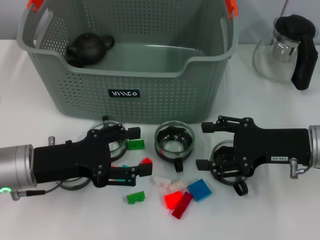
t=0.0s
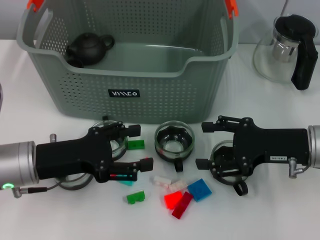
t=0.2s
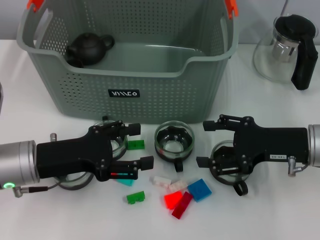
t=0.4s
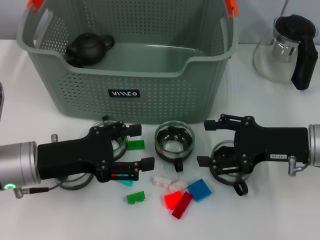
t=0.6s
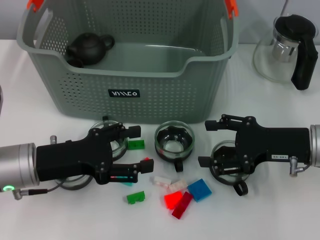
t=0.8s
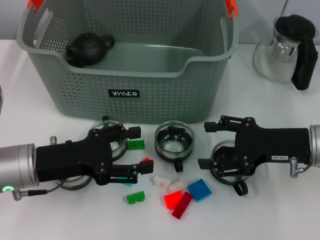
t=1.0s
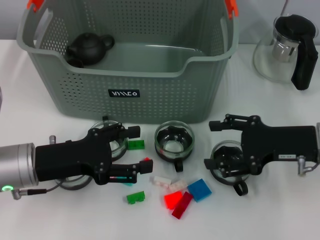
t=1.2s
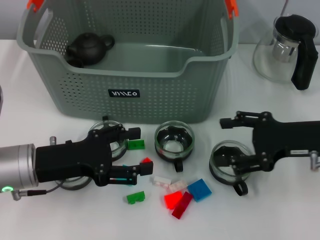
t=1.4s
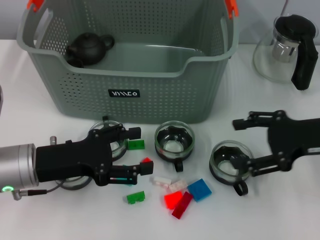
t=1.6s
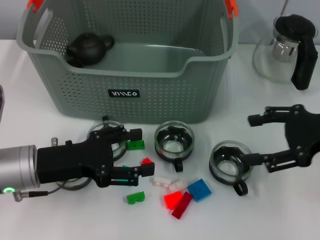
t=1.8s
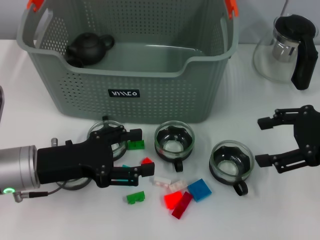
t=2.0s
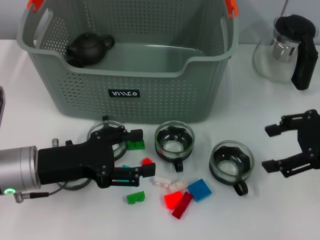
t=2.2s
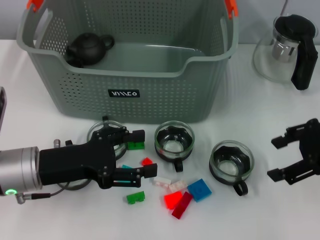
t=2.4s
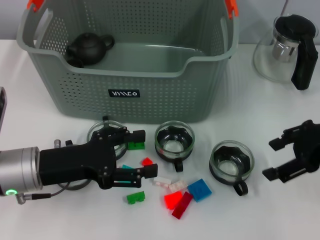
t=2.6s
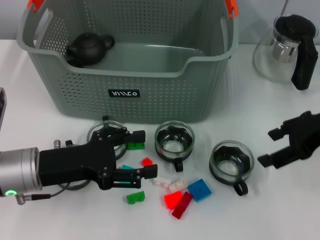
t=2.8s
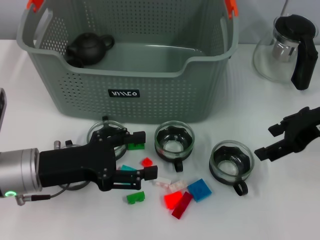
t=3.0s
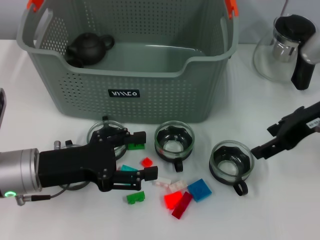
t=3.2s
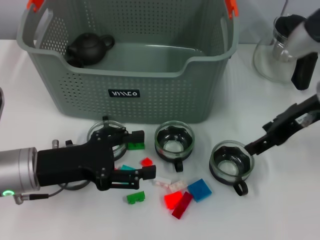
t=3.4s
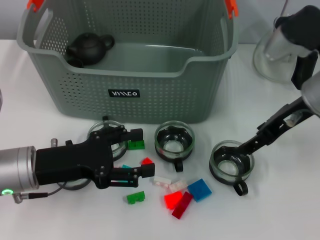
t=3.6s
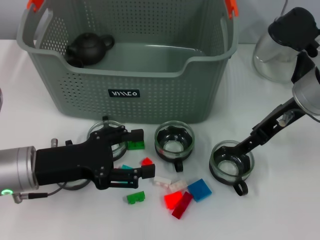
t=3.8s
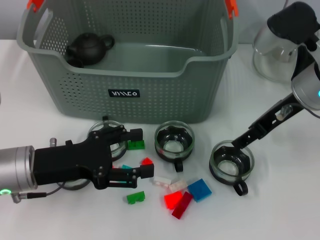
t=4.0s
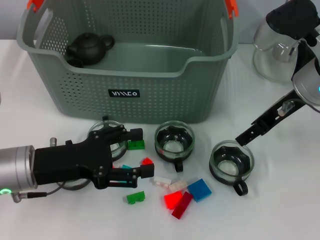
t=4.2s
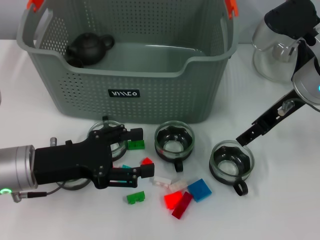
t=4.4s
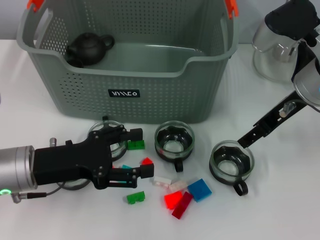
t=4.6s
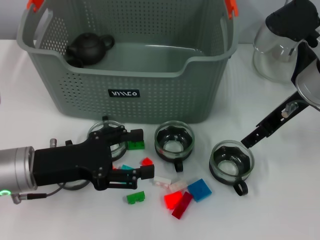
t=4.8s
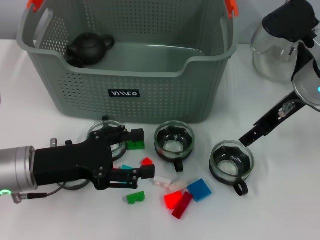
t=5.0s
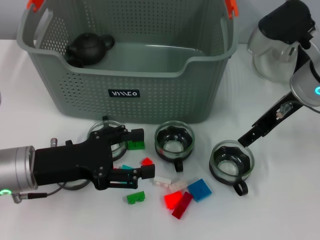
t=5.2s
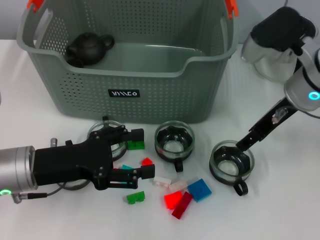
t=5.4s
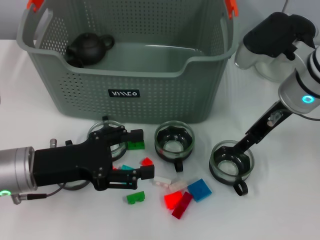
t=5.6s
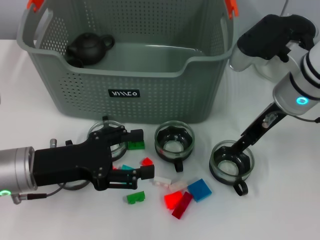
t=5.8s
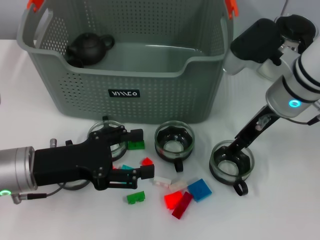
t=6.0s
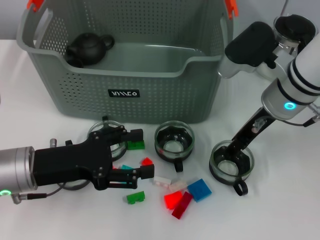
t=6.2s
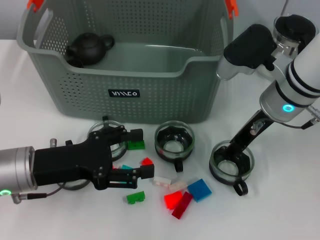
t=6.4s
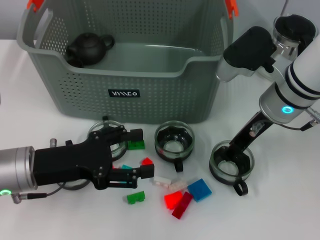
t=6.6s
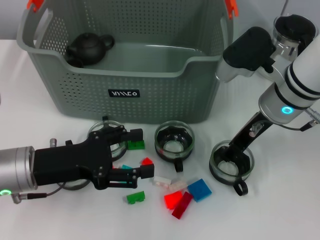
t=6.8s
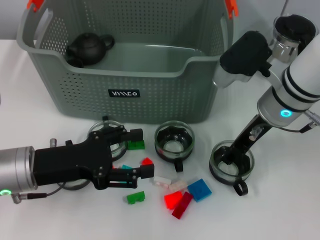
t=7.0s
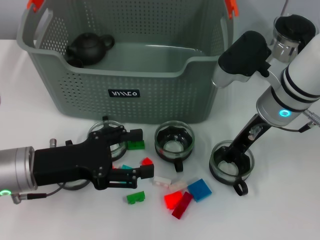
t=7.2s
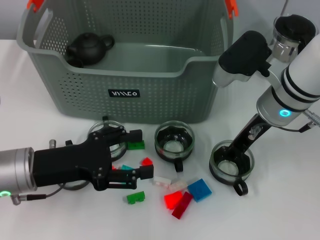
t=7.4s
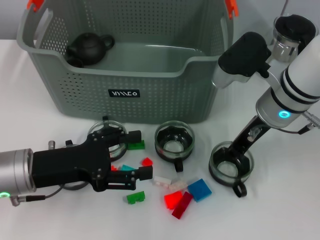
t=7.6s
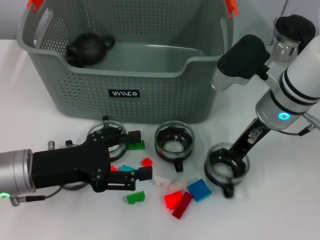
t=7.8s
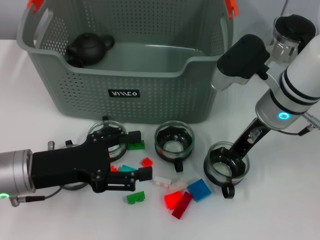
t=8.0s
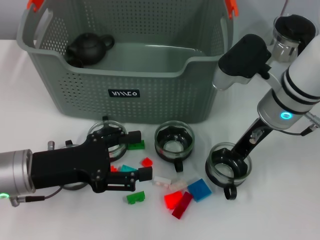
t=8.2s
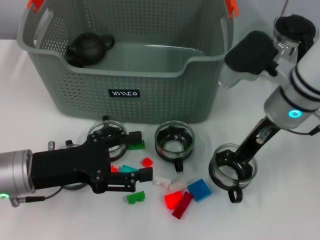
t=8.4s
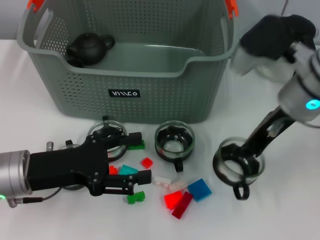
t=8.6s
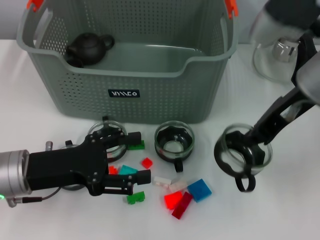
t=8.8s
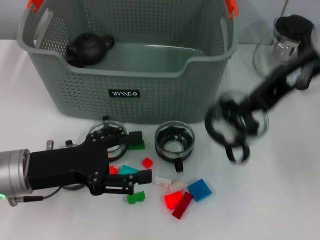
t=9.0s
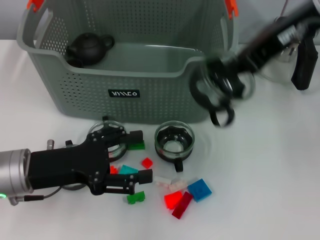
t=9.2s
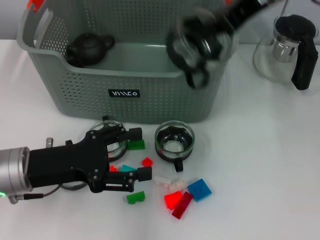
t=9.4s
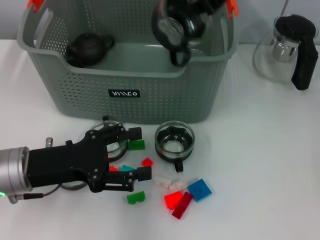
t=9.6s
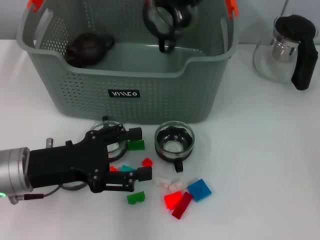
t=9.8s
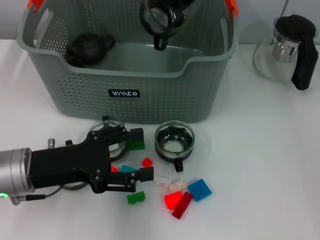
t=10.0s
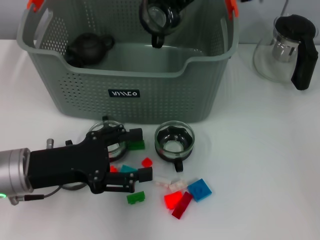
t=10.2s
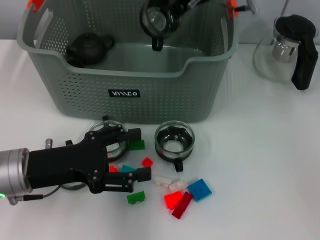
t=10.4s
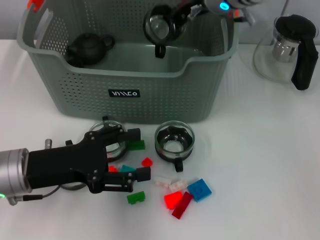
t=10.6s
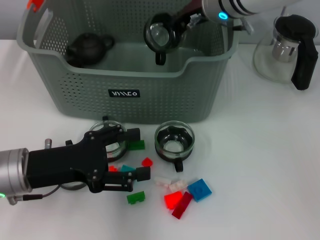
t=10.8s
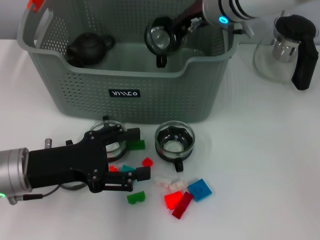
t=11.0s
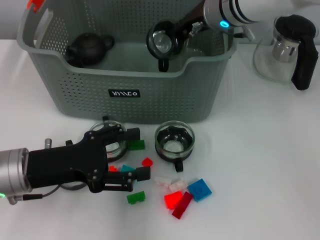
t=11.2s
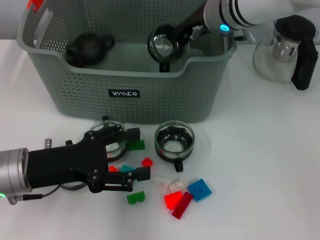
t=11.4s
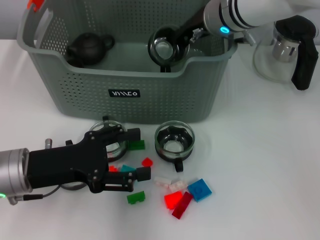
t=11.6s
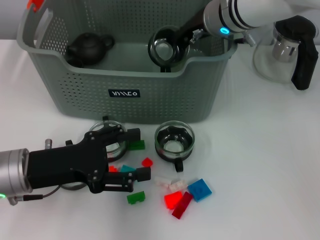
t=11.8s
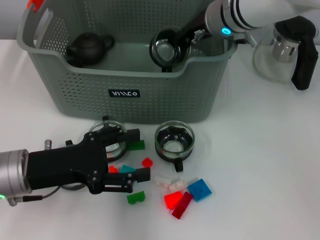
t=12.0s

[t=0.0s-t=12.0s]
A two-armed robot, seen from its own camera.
Task of the whole recording: pick up the teacup on the table and place it into the storage bin, pick up the block on the table and place it into the storage bin.
Step, t=0.0s to t=7.8s: Grasp the cup with right gripper.
t=0.0s to t=1.6s: The right gripper shifts by approximately 5 cm.
t=1.6s to t=3.0s: The right gripper changes place by some 5 cm.
t=3.0s to t=4.4s: The right gripper moves to the left, approximately 5 cm.
t=4.4s to t=6.0s: The grippers make only small movements.
t=6.0s to t=7.6s: The right gripper closes its fingers.
t=7.6s to t=9.0s: The right gripper moves upward, roughly 15 cm, and closes its fingers.
t=9.0s to t=10.4s: The right gripper travels forward and to the left by about 15 cm.
t=10.4s to t=12.0s: The right gripper moves approximately 5 cm.

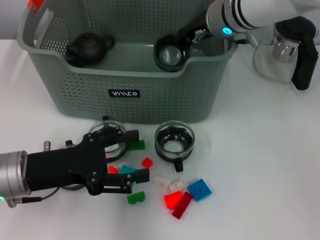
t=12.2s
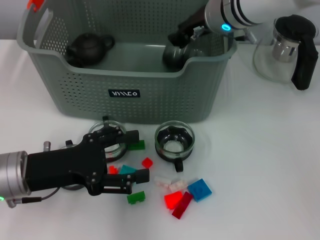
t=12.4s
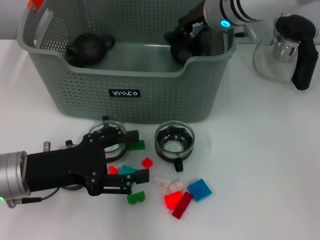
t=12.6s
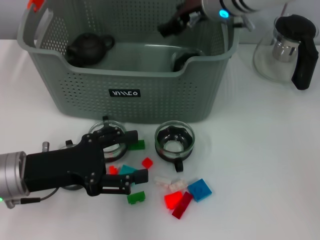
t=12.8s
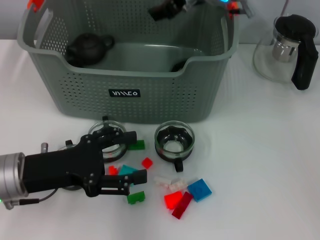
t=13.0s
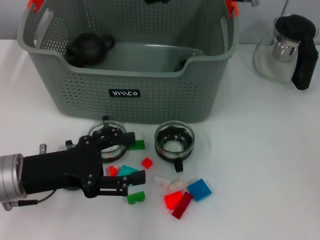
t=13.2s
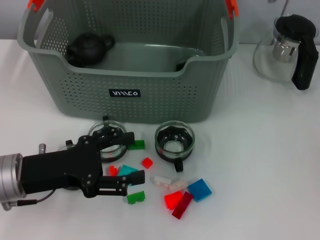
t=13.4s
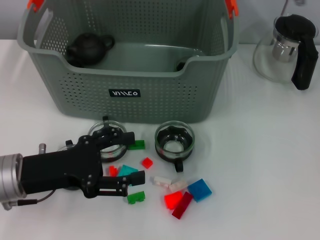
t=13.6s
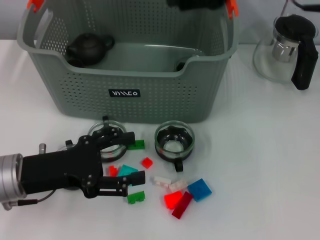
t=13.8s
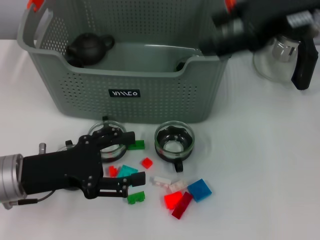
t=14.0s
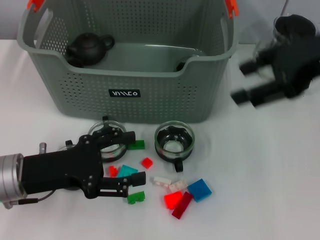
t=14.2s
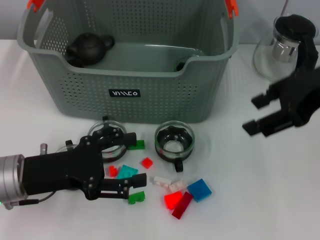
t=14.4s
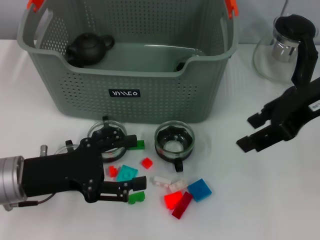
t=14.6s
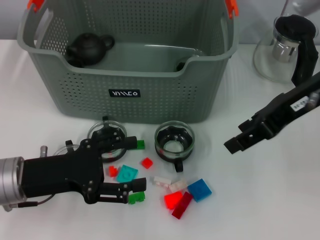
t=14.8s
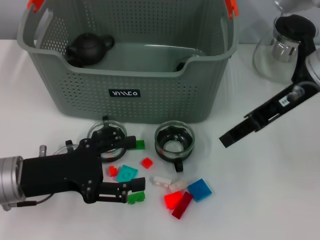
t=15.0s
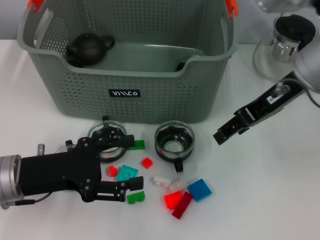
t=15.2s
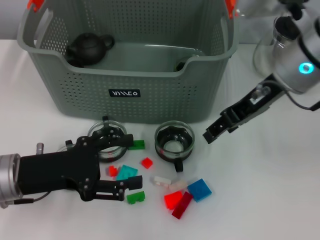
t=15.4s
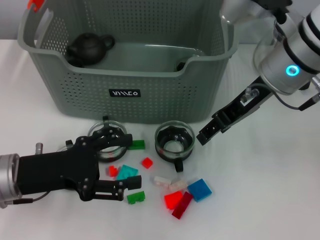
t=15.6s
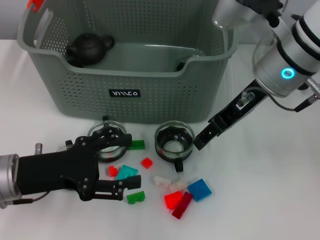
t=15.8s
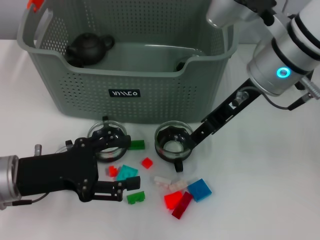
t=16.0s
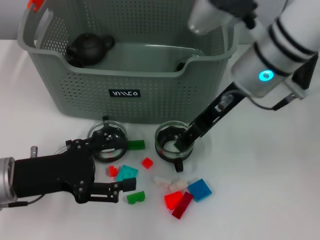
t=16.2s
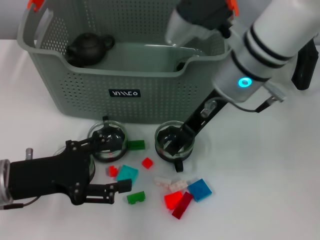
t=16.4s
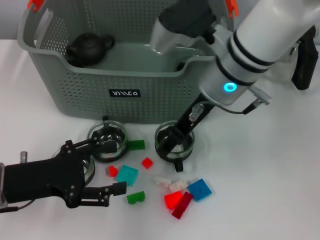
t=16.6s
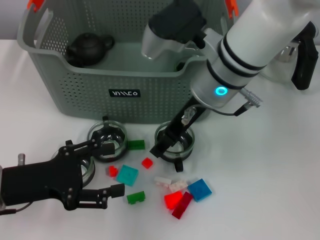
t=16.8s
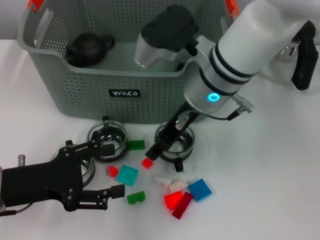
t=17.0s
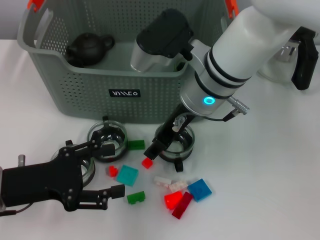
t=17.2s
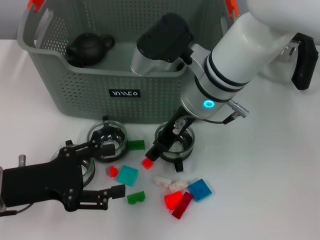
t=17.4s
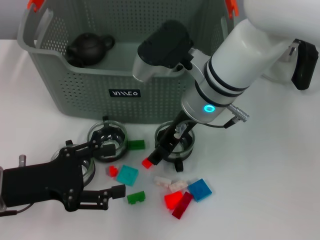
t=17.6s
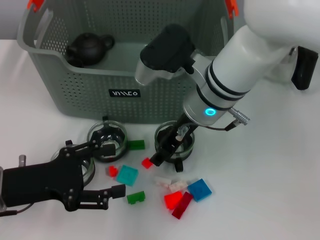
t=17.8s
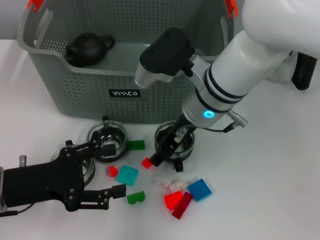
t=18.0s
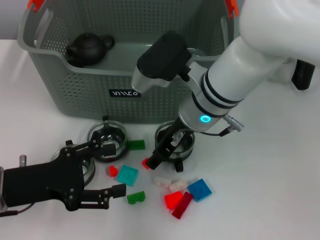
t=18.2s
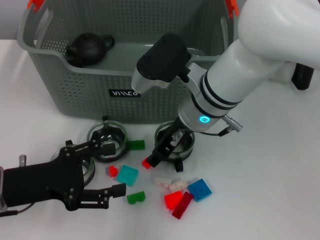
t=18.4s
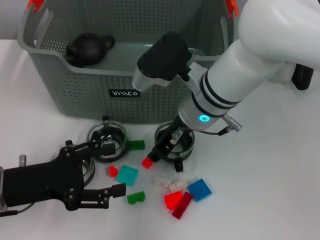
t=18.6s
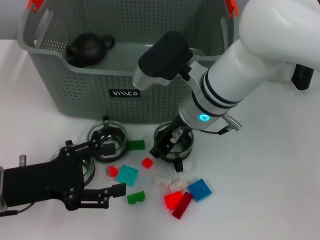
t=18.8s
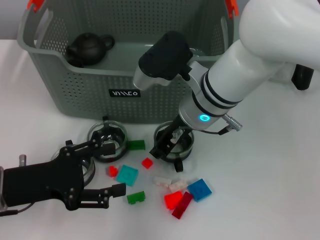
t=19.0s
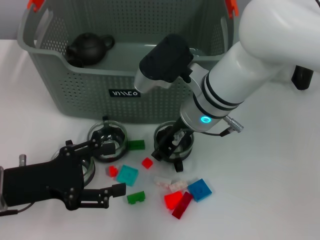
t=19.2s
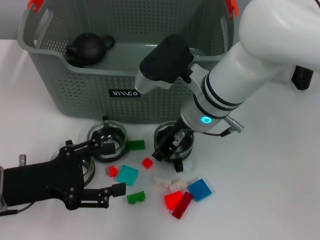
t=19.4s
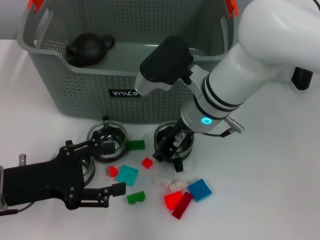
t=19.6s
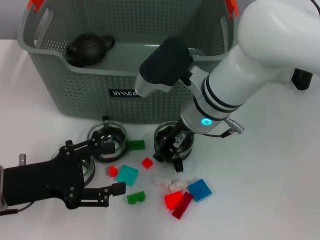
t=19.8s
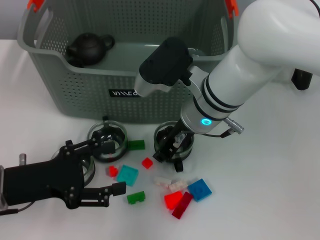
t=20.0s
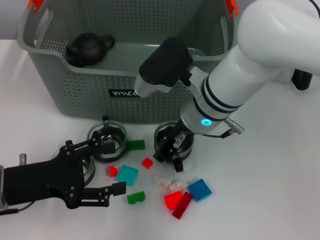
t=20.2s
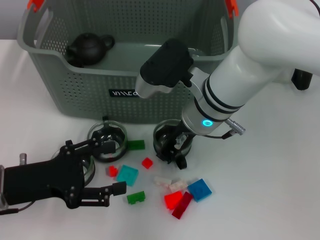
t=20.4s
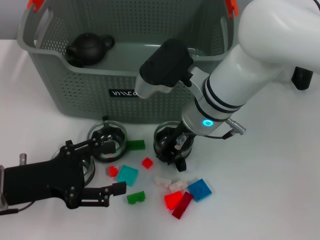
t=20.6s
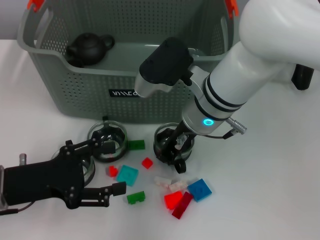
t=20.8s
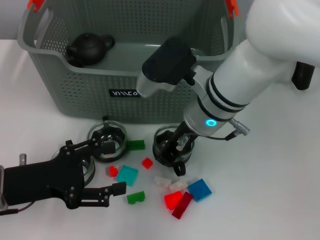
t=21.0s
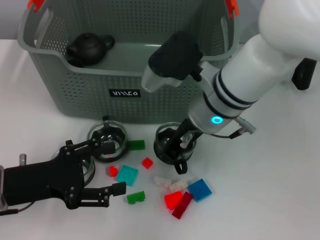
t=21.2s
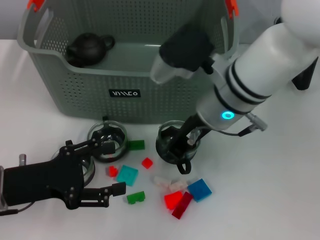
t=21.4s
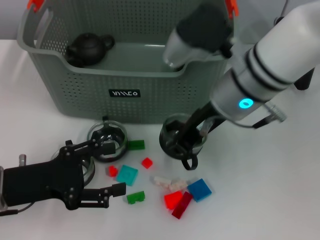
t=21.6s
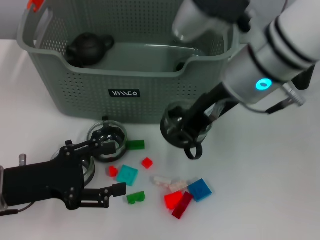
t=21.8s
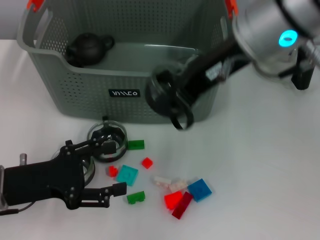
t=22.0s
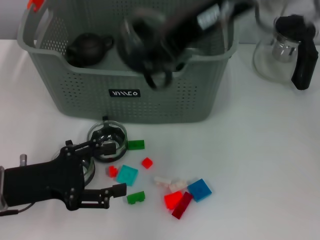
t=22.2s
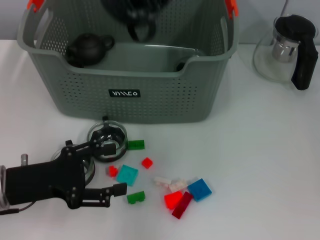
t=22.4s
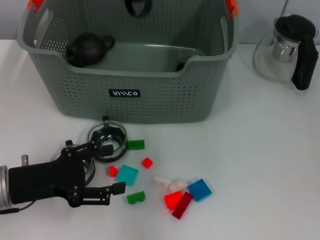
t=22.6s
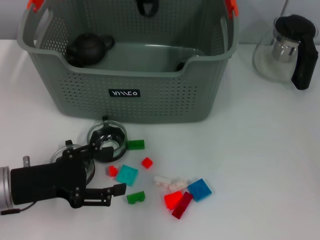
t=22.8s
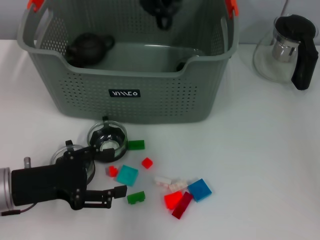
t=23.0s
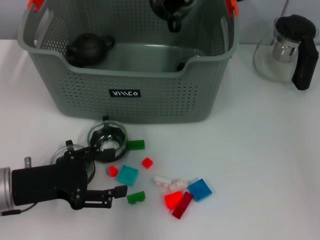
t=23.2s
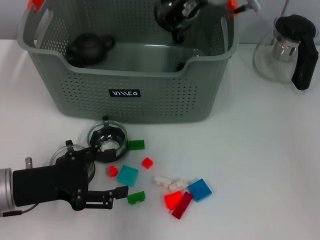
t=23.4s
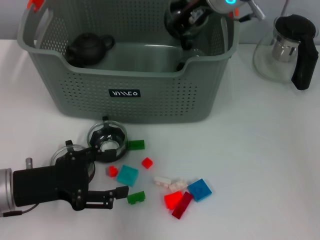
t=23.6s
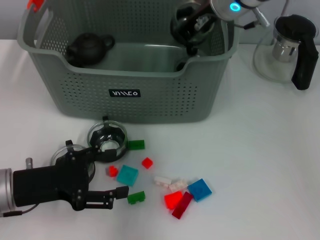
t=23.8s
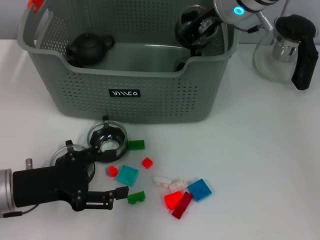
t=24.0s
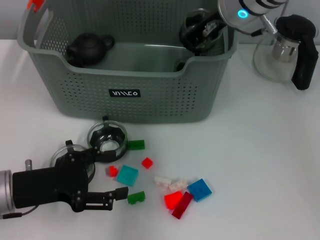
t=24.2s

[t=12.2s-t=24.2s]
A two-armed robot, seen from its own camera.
Task of the whole recording: pick up the teacup on the table and place it into the storage bin, pick up the block on the table and place it into the storage bin.
Step, t=12.8s to t=20.6s: Grasp the cup with right gripper.
t=12.2s to t=13.8s: The right gripper goes about 15 cm upward, backward and to the right, and opens up.
t=13.8s to t=15.2s: The right gripper is displaced downward by roughly 10 cm.
t=15.2s to t=16.6s: The right gripper heads to the left, covering approximately 10 cm.
t=16.6s to t=18.2s: The right gripper goes approximately 5 cm downward.
t=18.2s to t=19.8s: The right gripper closes up.
t=19.8s to t=21.2s: There are only small adjustments of the grippers.
t=21.2s to t=22.6s: The right gripper heads upward, covering roughly 20 cm.
t=22.6s to t=24.2s: The right gripper goes some 15 cm downward and forward.
